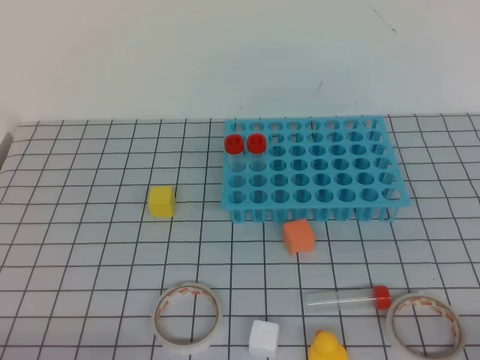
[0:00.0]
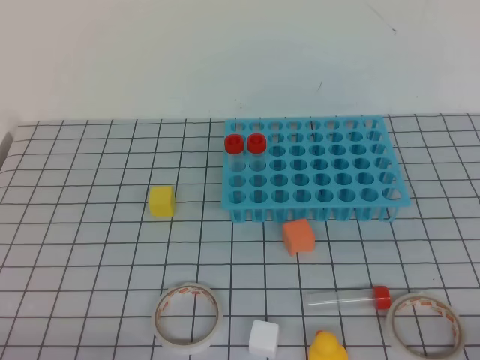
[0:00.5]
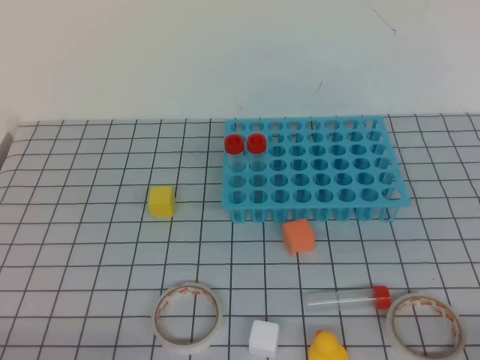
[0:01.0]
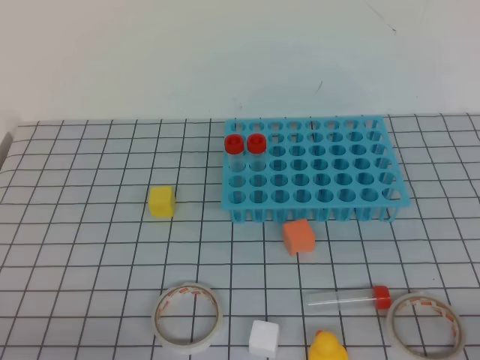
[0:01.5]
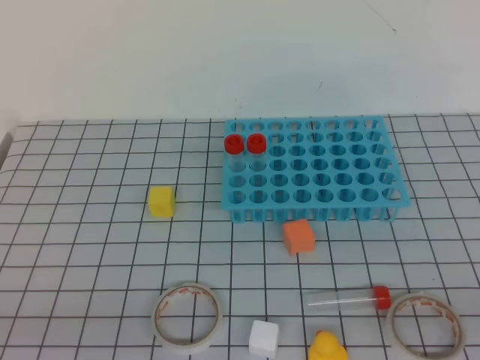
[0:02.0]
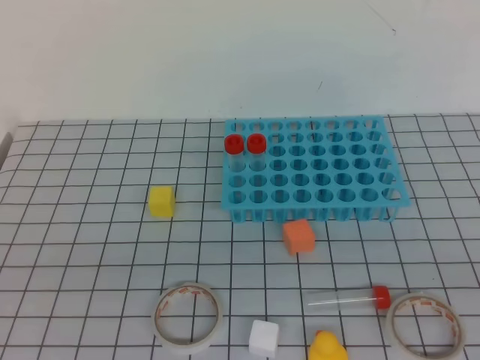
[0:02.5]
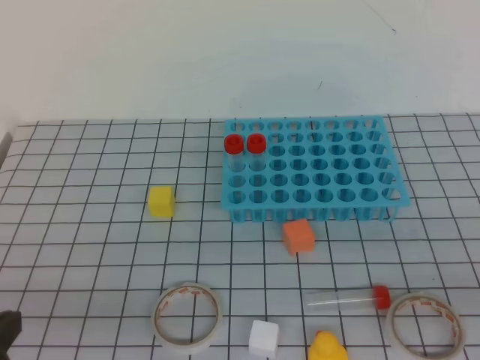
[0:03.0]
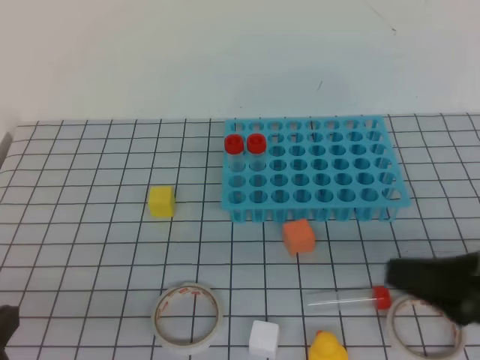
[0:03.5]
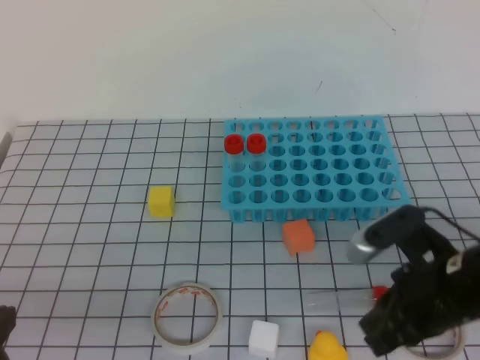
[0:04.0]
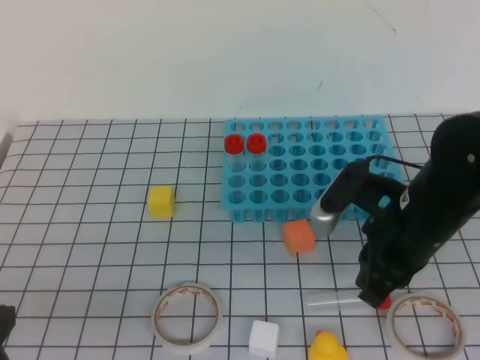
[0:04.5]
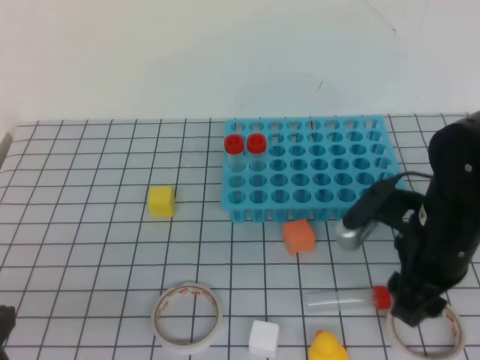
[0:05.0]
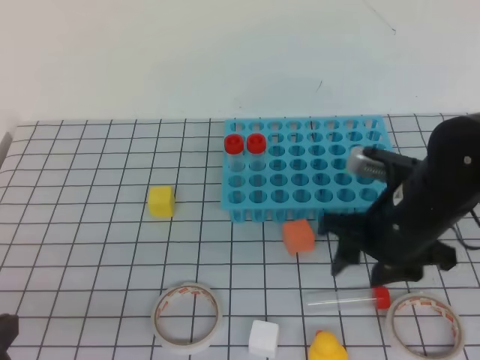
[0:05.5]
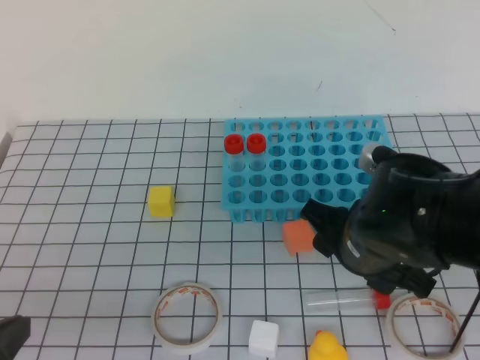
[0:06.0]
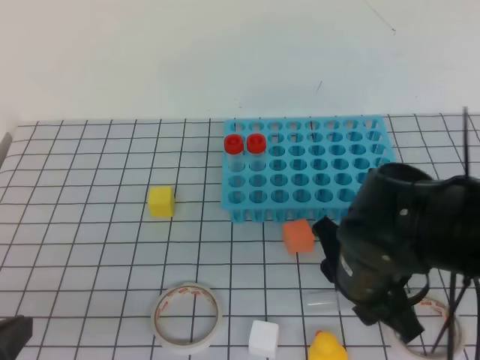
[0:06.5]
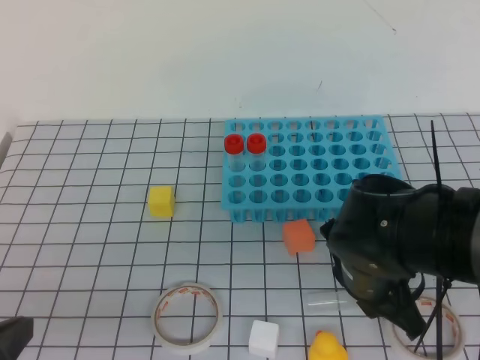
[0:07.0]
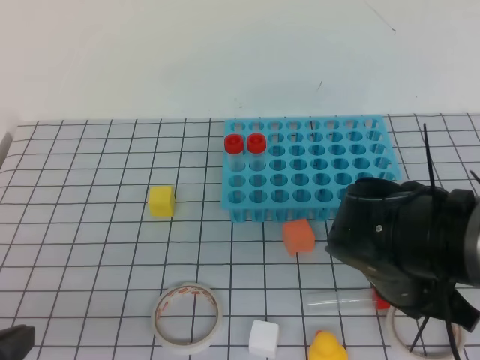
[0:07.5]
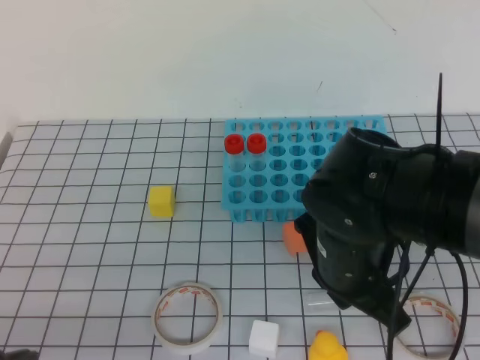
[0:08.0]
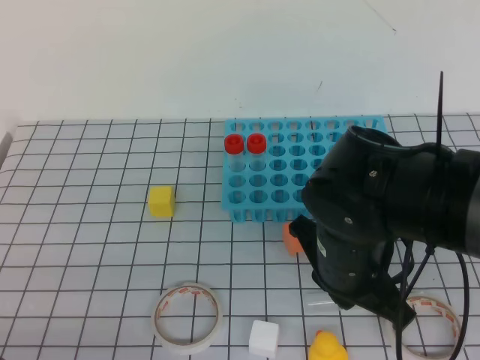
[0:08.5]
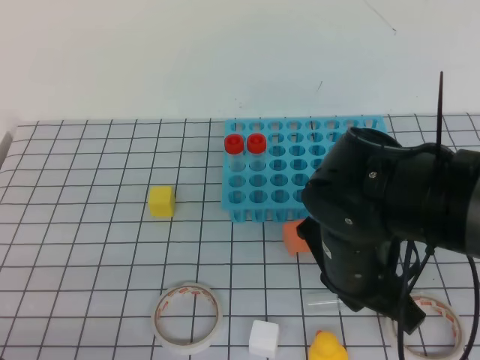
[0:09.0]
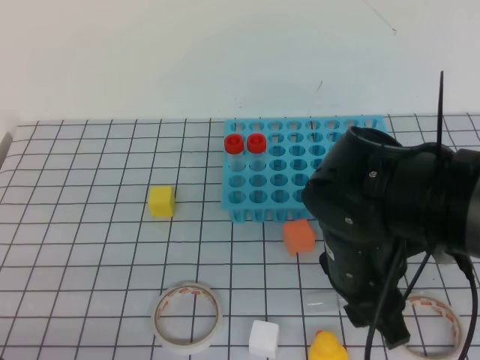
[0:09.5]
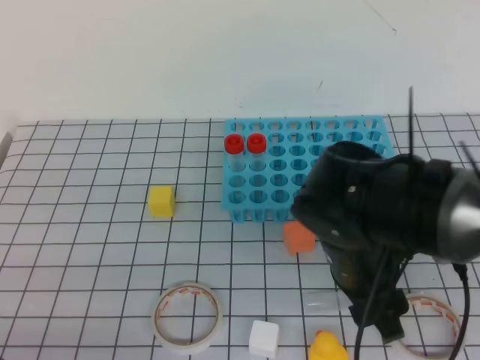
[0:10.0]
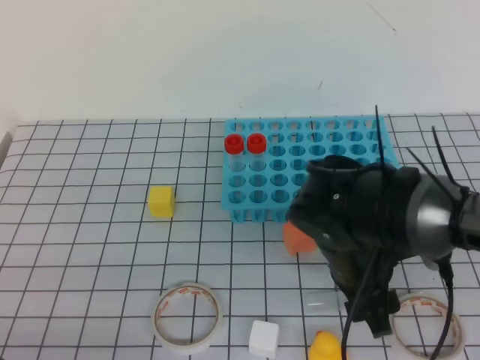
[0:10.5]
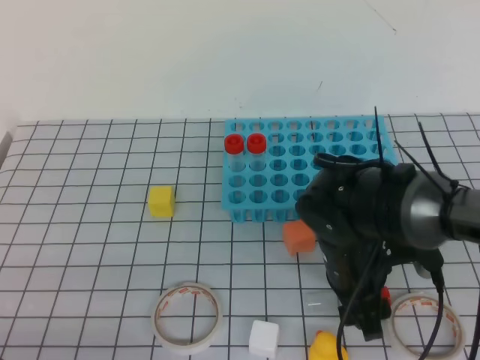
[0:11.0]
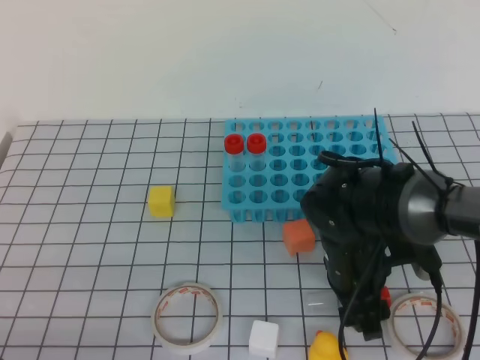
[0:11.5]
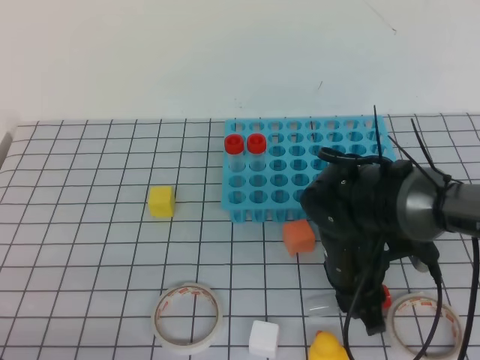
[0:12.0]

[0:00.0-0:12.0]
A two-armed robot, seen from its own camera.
0:02.0 to 0:04.0: The right gripper moves forward and to the left, roughly 25 cm.
0:04.0 to 0:06.0: The right gripper heads to the left, covering roughly 5 cm, and opens.
0:06.0 to 0:08.0: The right gripper closes up.
0:08.0 to 0:10.0: The right gripper opens up.
0:10.0 to 0:12.0: The right gripper shifts approximately 5 cm downward, and closes up.

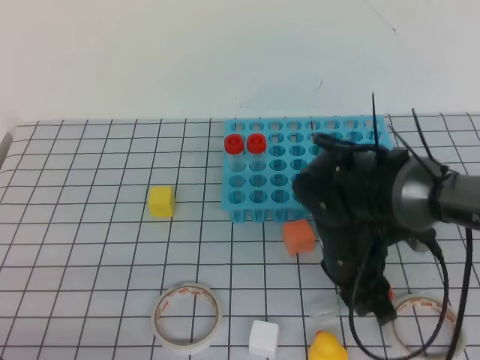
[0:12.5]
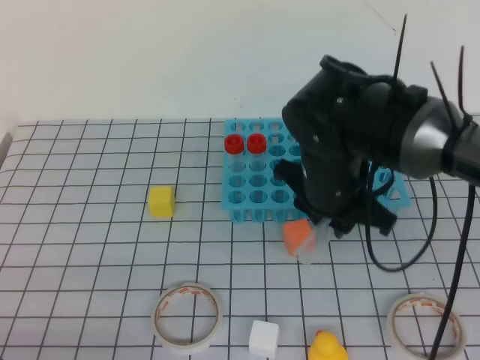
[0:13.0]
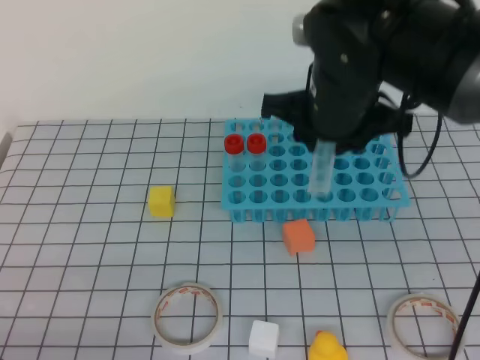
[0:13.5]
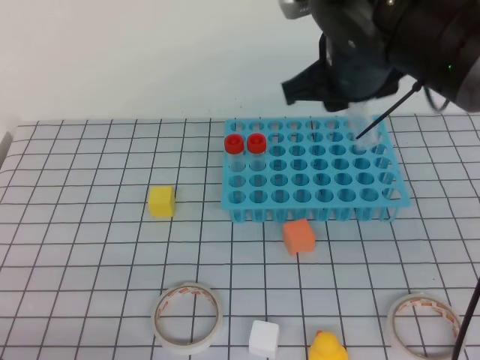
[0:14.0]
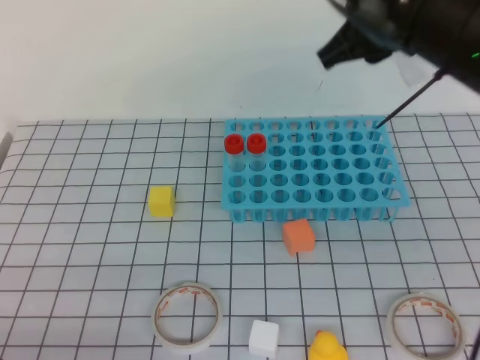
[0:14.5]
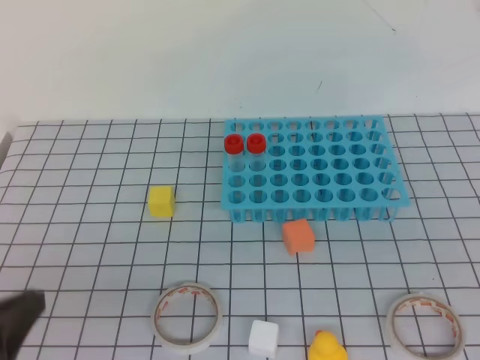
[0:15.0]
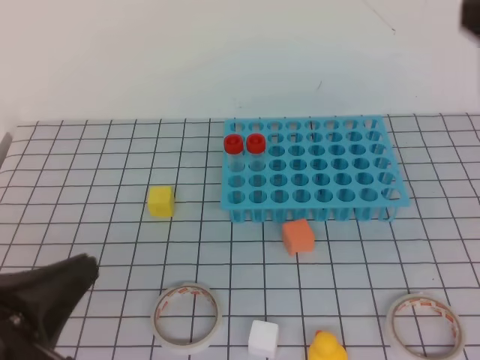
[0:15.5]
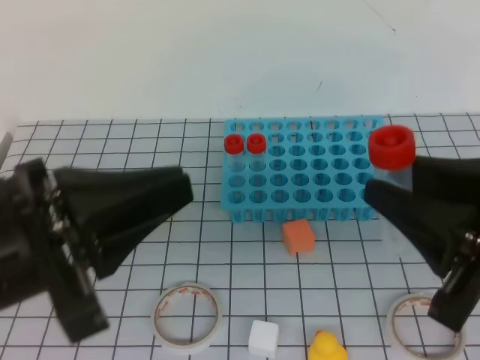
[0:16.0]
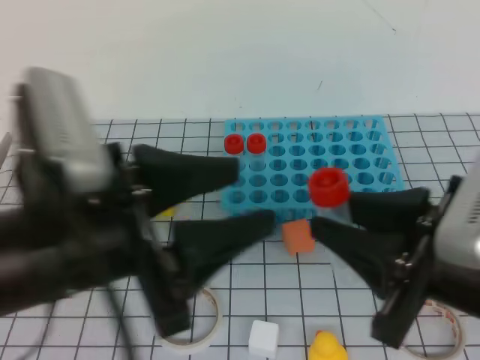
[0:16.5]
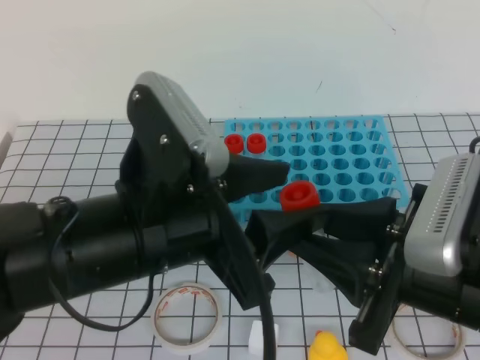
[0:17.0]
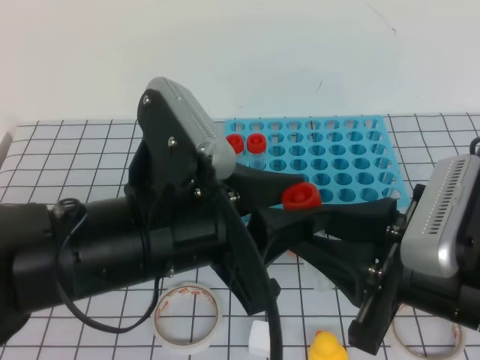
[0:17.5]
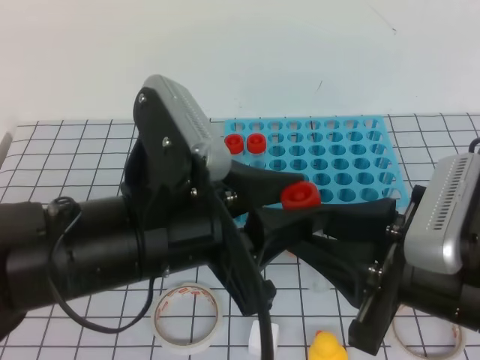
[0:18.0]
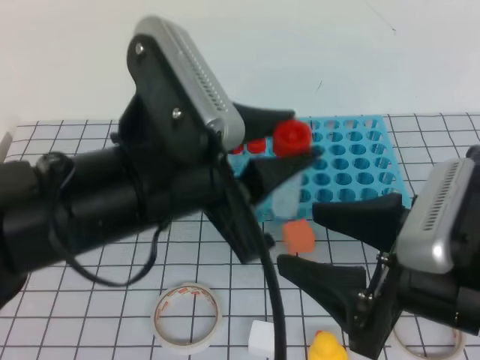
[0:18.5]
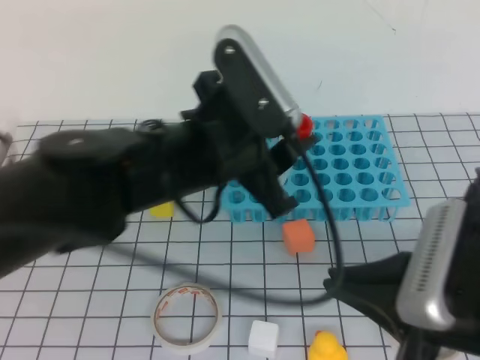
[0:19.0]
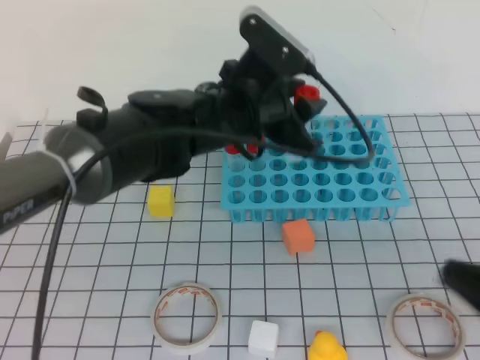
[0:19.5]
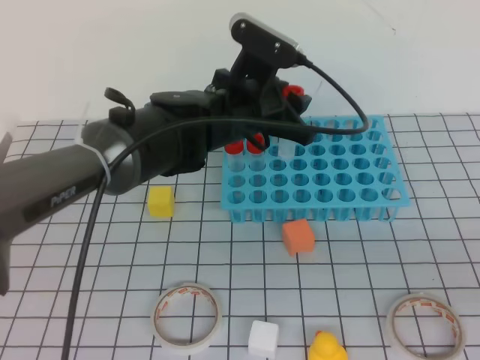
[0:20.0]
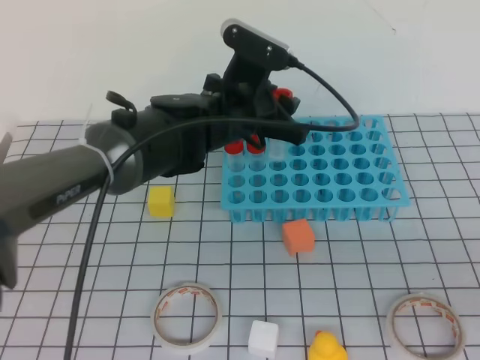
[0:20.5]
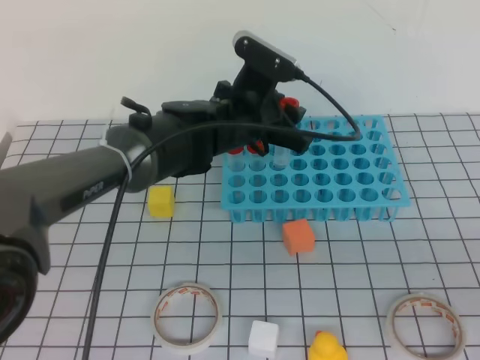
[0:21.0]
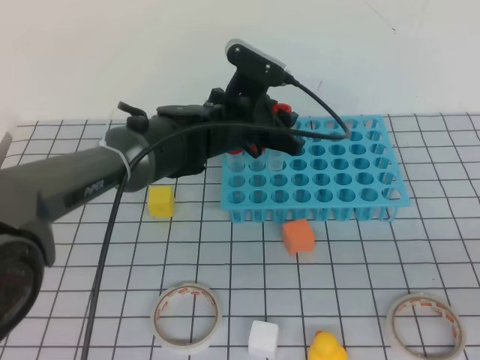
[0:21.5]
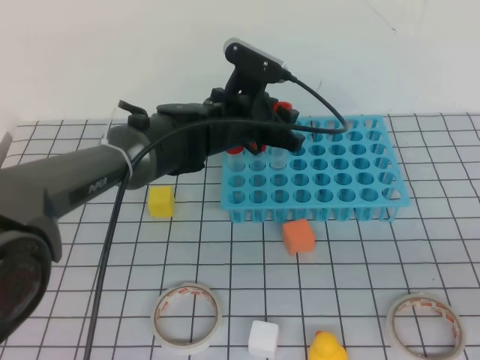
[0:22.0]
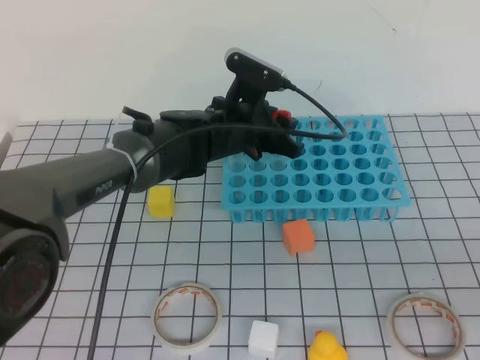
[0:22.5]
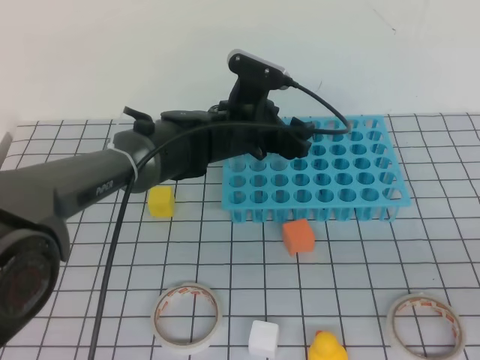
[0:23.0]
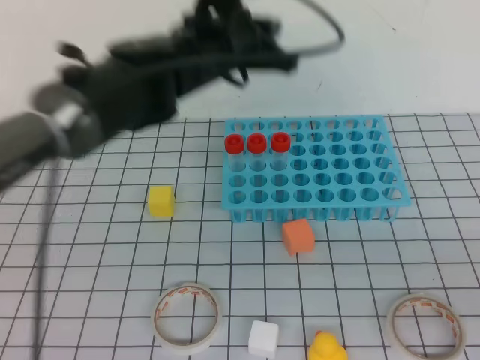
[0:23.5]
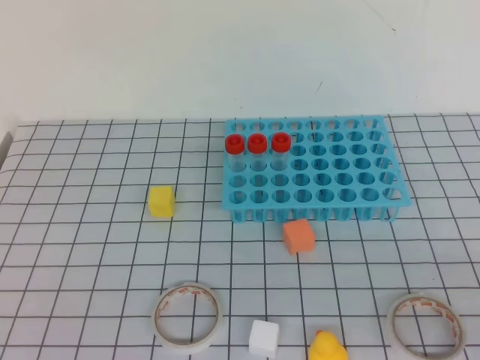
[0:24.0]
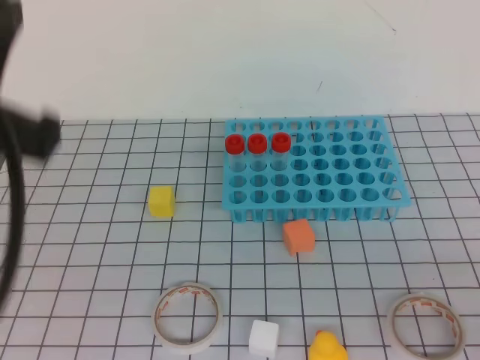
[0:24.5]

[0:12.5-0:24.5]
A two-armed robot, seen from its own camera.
0:12.5 to 0:14.5: The right gripper goes some 25 cm upward.
0:14.5 to 0:16.5: The left gripper is displaced upward, to the right and forward by some 15 cm, and opens its fingers, while the right gripper moves backward and downward, some 20 cm.
0:16.5 to 0:18.5: The right gripper opens. The left gripper goes some 5 cm to the right.
0:18.5 to 0:20.5: The right gripper moves to the right and backward, about 15 cm, and closes; the left gripper moves forward and downward, roughly 25 cm.
0:20.5 to 0:22.5: The left gripper moves about 5 cm.
0:22.5 to 0:24.5: The left gripper shifts some 40 cm backward, upward and to the left, and closes its fingers.

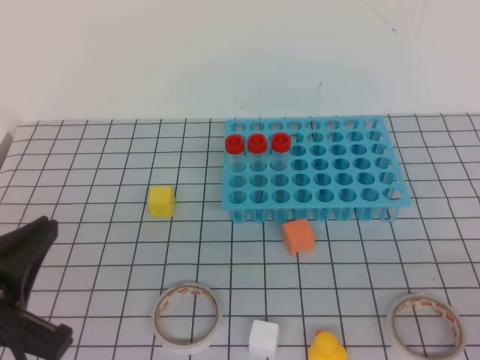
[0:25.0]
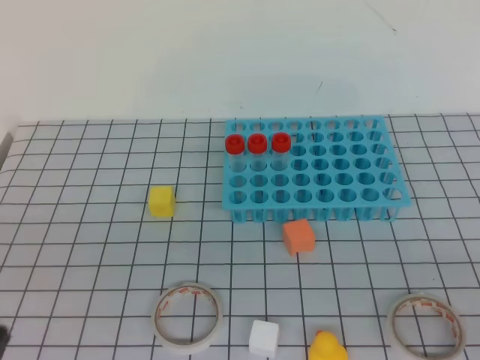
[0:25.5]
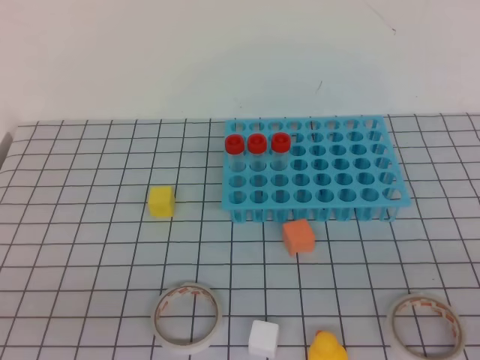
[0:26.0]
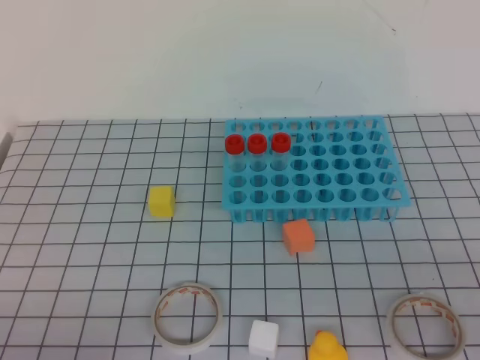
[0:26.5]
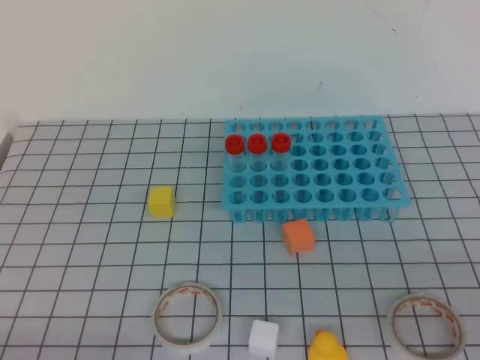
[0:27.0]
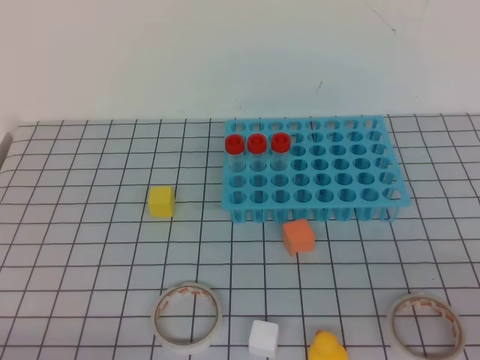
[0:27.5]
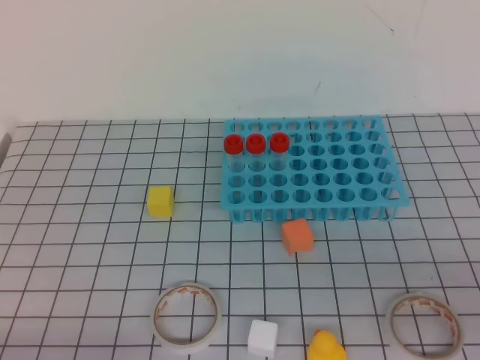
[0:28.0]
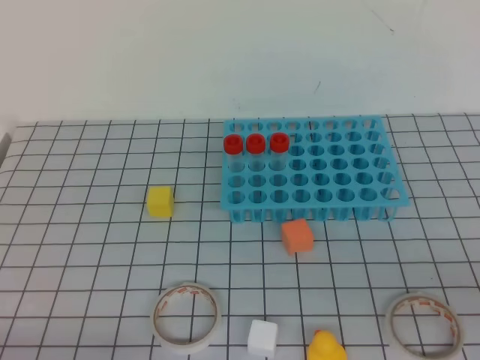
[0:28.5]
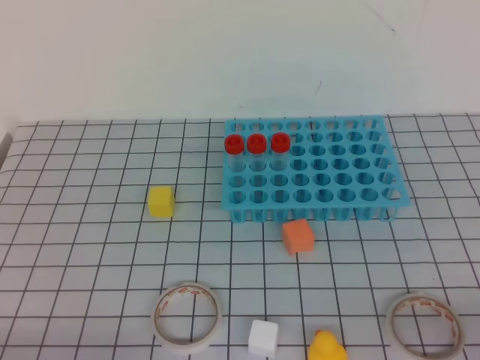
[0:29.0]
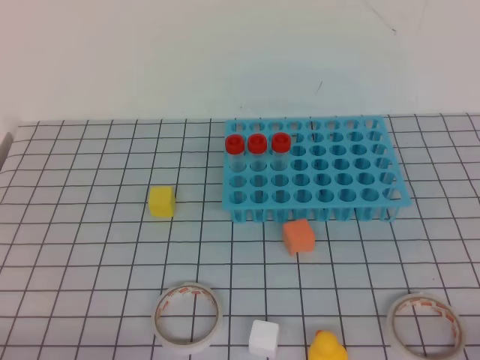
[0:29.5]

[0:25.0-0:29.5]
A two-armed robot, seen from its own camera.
0:25.0 to 0:27.0: The left gripper is displaced downward and backward by some 15 cm.
